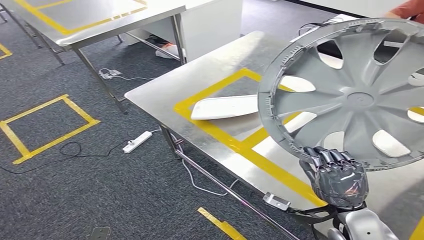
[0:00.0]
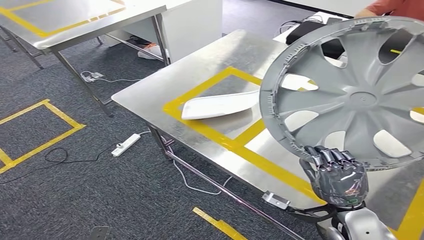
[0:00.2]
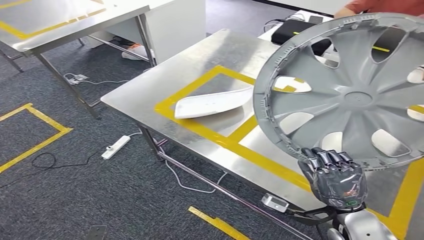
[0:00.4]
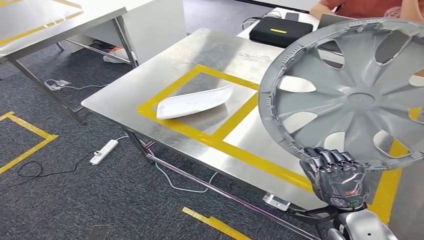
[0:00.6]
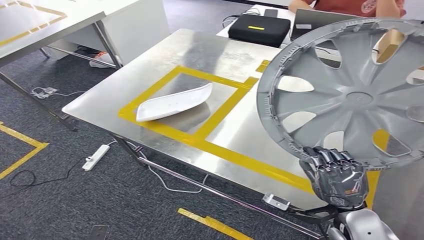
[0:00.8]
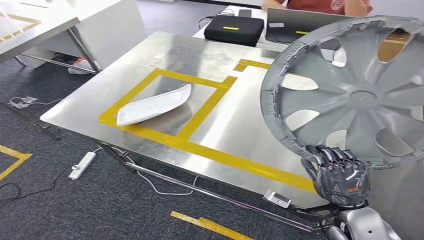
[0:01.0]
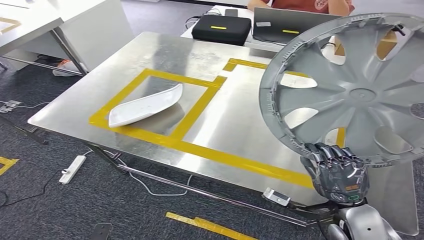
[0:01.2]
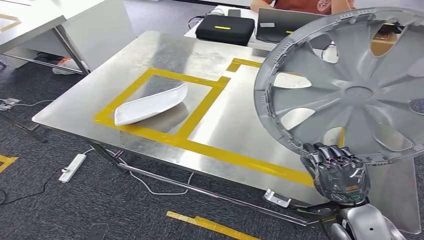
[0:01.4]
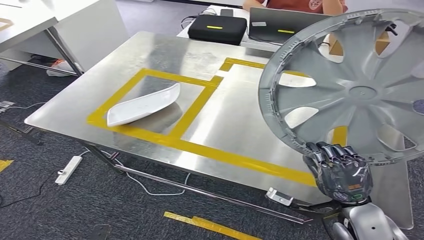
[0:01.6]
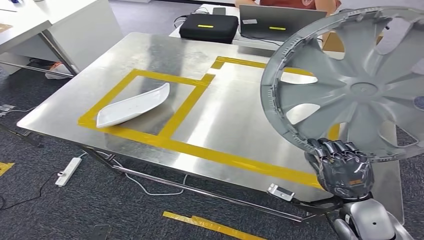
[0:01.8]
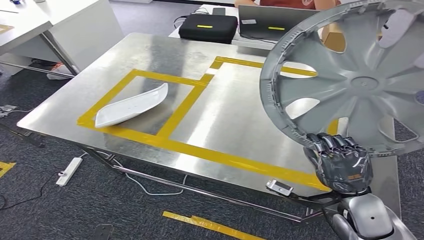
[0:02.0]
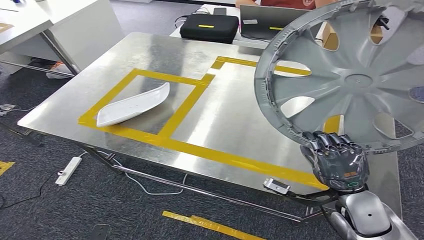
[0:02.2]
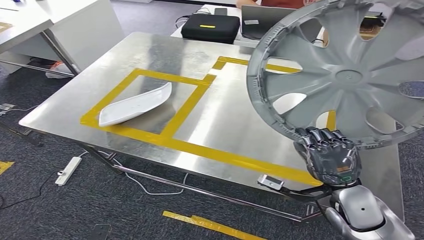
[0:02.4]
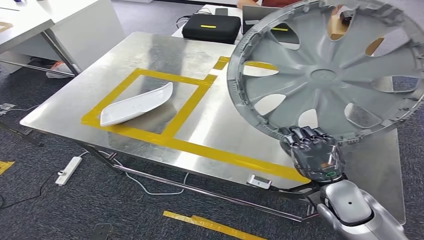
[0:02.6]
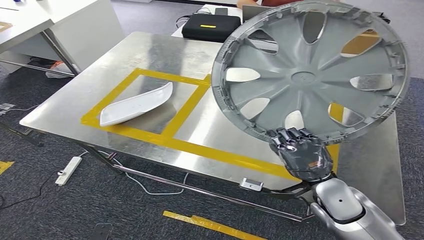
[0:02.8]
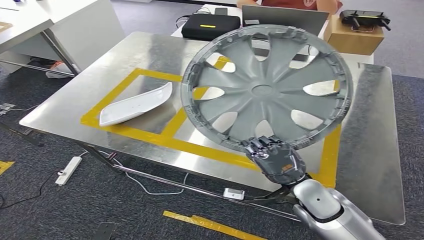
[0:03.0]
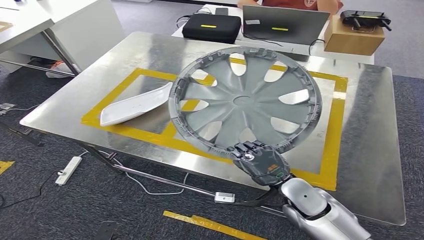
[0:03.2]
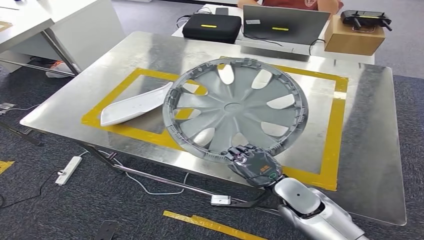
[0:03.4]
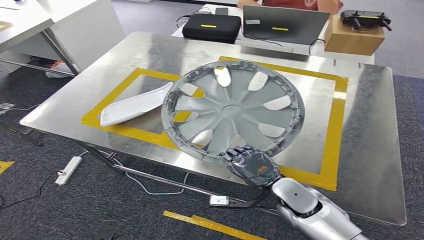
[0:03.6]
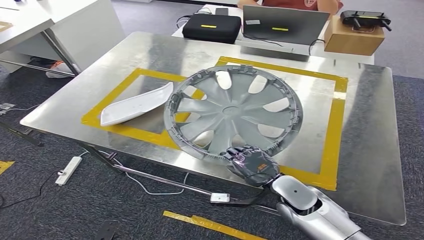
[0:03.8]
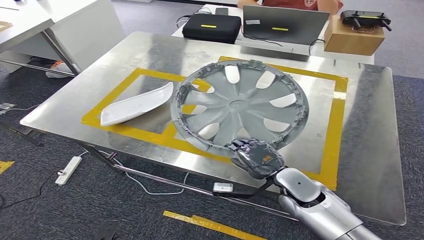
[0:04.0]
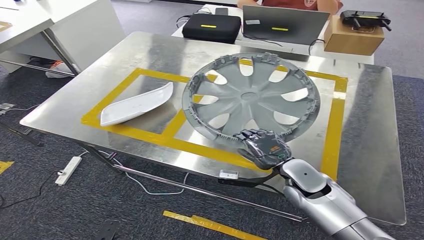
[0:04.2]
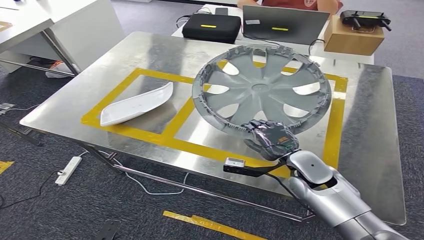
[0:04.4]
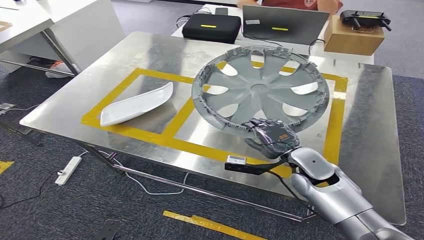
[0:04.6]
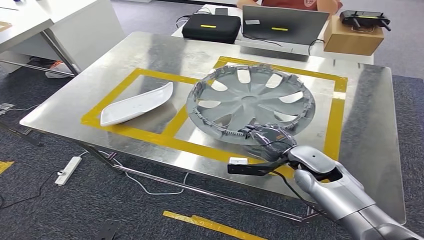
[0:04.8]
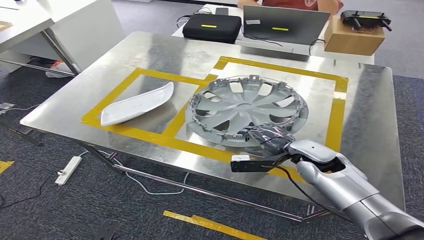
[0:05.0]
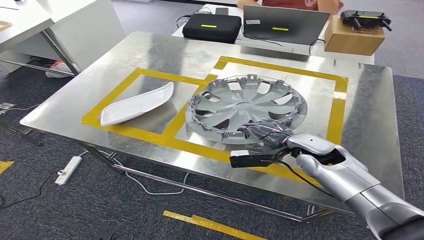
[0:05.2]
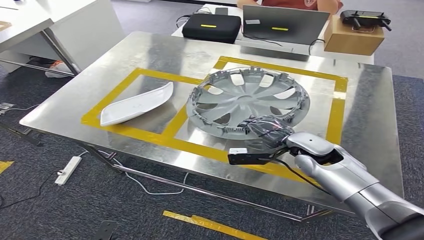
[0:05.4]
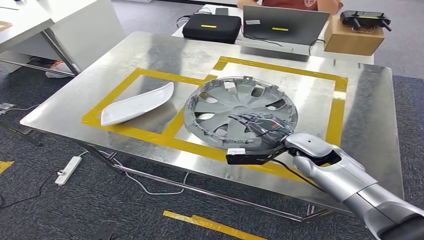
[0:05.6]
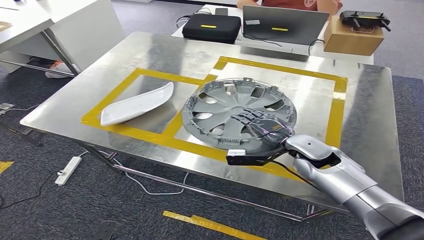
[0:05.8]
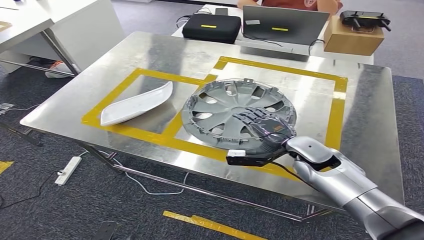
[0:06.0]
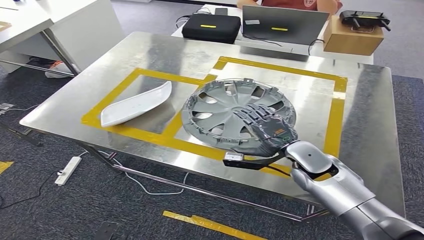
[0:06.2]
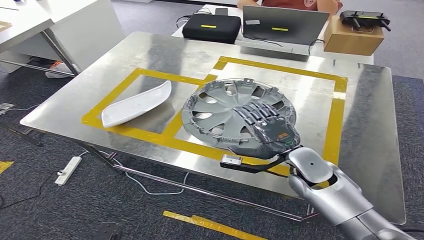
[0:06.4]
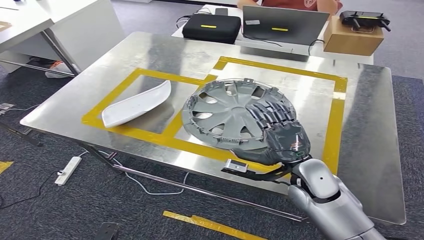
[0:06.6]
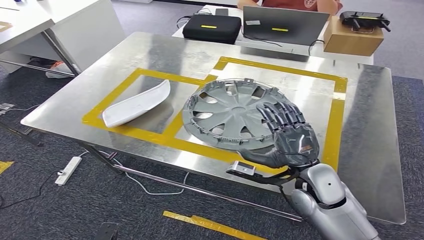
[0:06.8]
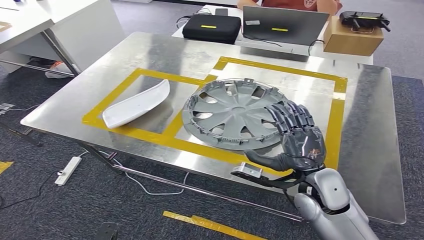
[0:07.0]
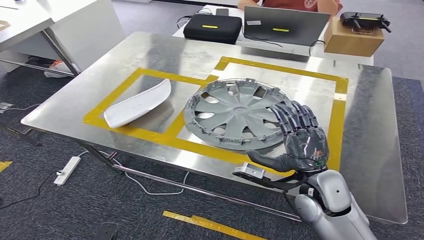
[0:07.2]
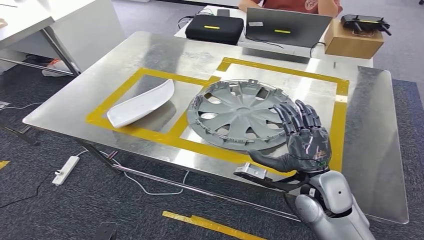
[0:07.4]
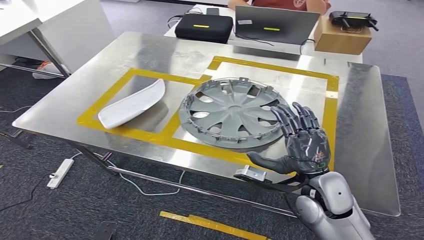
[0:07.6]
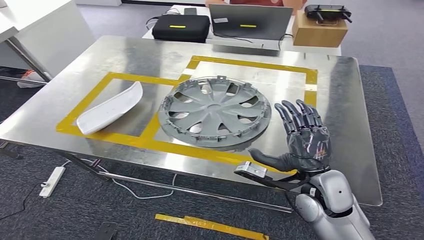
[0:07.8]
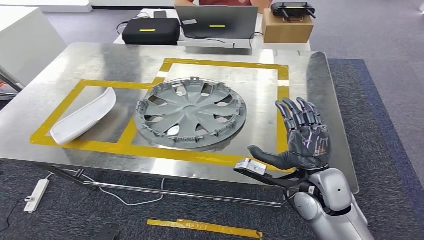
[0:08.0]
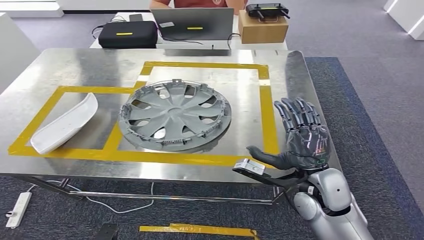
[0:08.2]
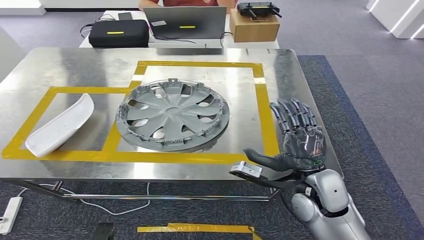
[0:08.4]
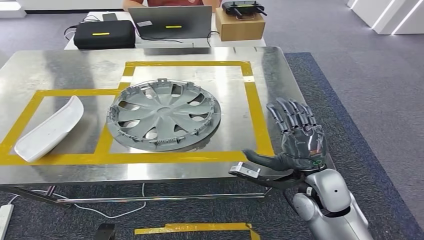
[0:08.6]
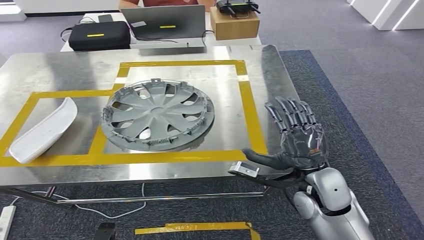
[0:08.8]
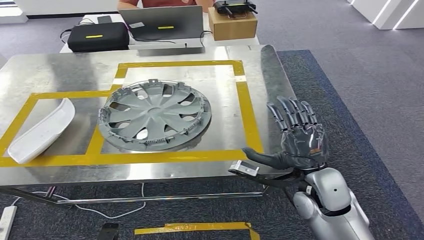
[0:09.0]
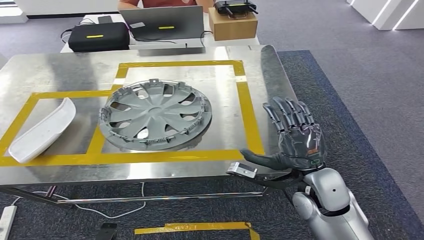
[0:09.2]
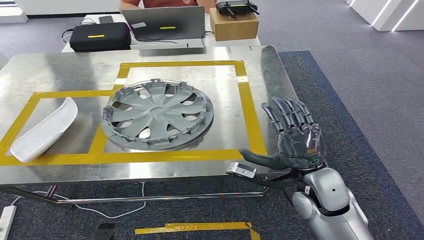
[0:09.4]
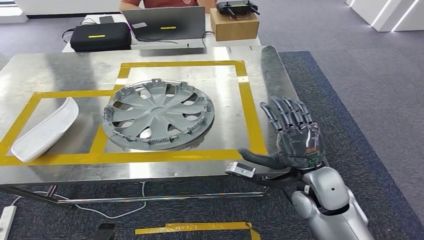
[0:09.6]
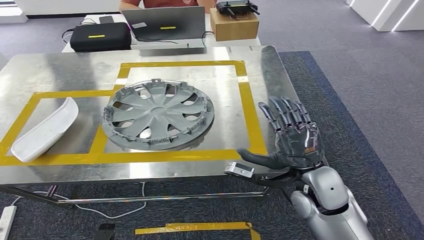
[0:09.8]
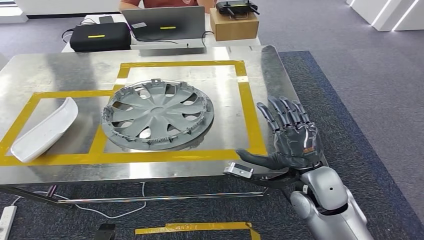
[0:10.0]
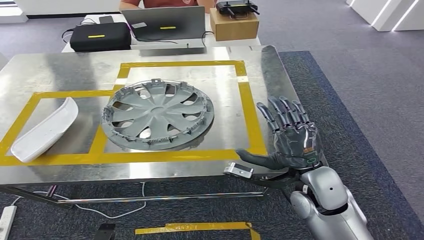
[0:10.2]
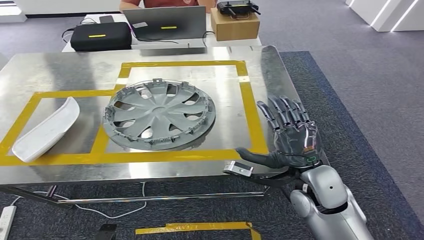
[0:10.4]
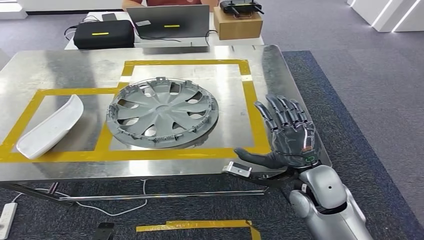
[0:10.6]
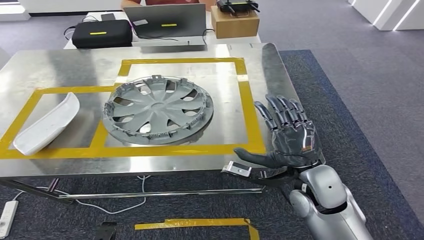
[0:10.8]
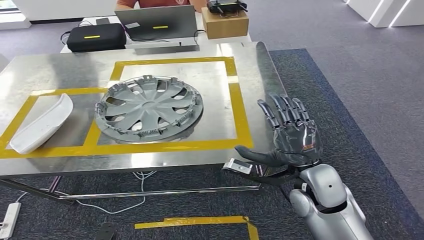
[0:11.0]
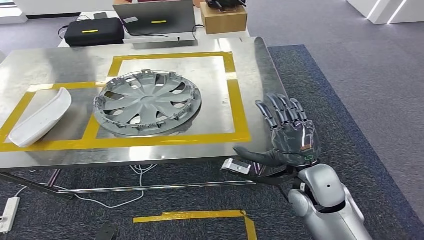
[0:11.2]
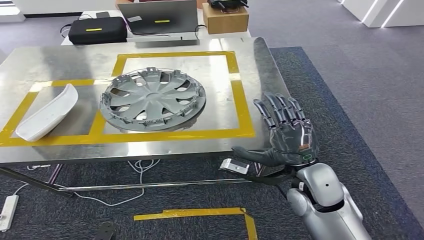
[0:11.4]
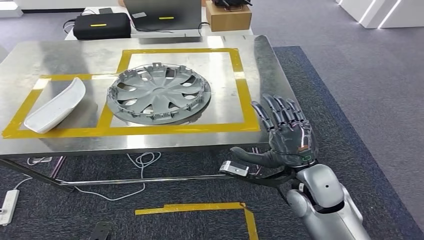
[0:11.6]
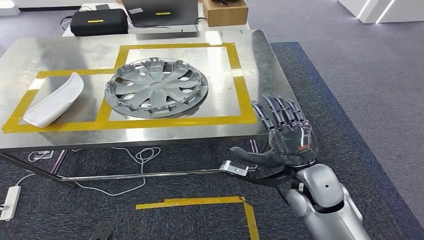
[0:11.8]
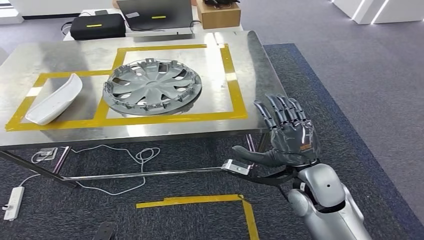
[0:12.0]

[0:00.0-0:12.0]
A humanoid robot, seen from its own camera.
0:03.0 to 0:04.4: The right hand travels forward by approximately 5 cm.
0:09.0 to 0:10.4: Neither hand changes place.

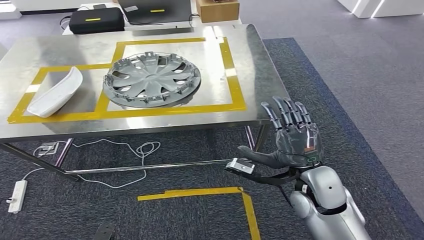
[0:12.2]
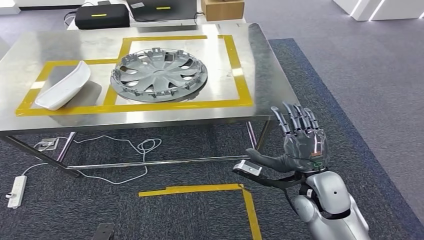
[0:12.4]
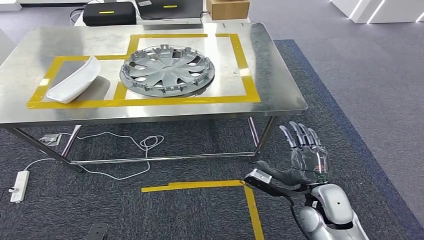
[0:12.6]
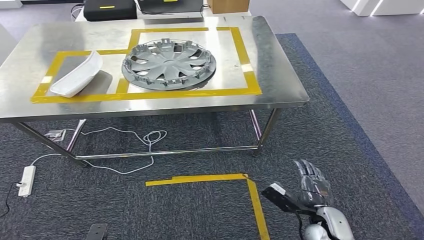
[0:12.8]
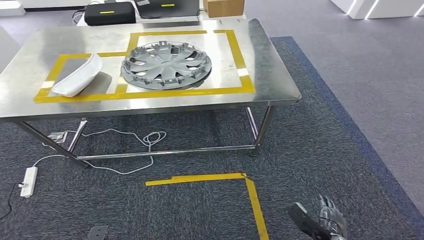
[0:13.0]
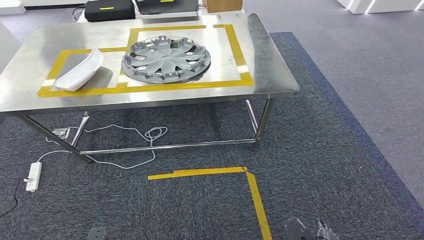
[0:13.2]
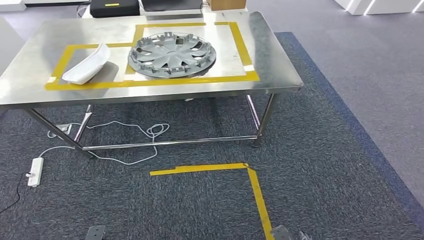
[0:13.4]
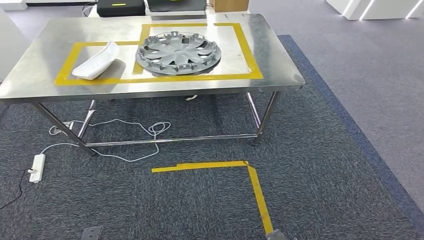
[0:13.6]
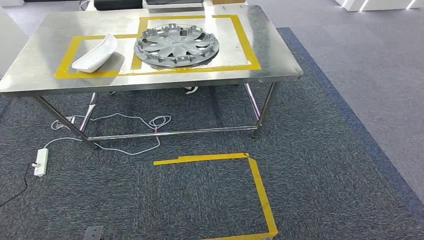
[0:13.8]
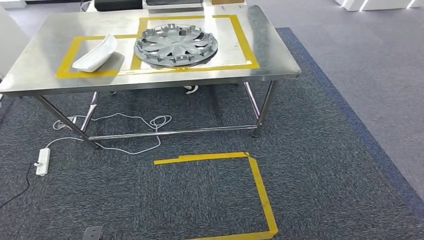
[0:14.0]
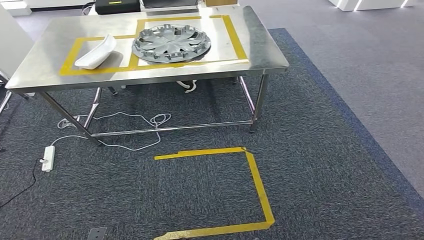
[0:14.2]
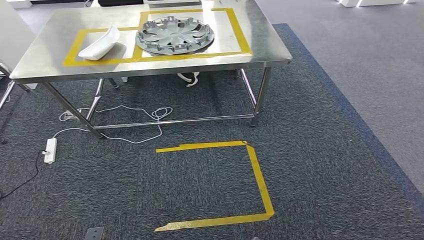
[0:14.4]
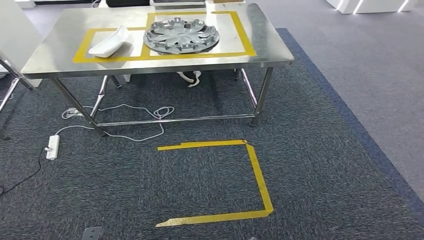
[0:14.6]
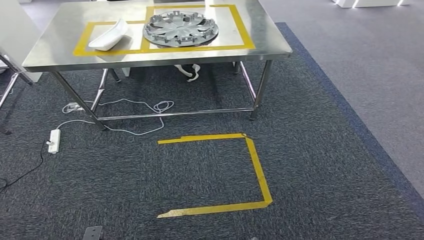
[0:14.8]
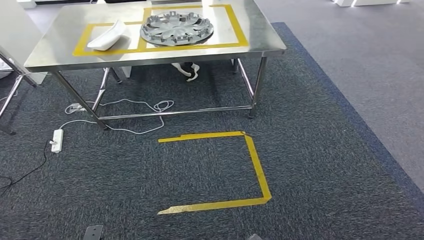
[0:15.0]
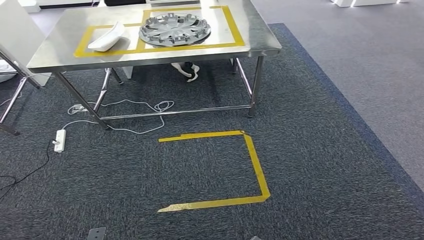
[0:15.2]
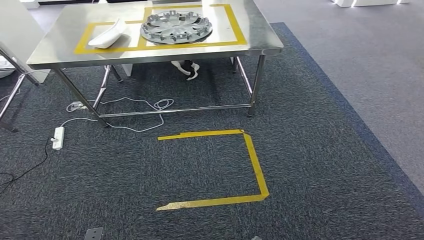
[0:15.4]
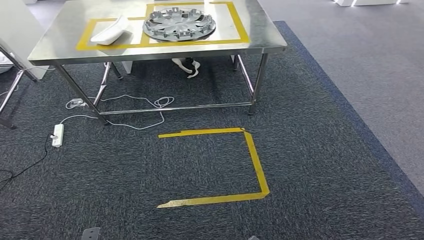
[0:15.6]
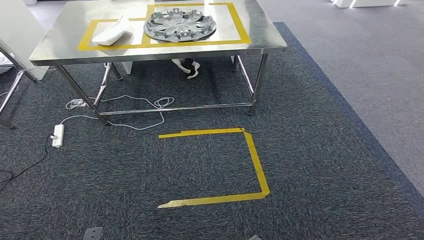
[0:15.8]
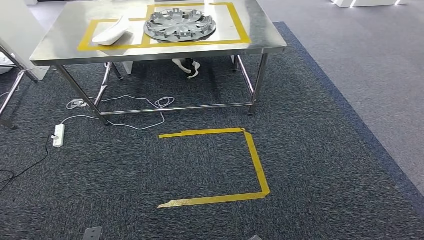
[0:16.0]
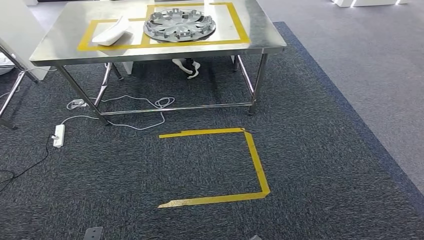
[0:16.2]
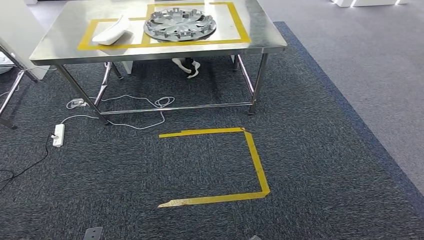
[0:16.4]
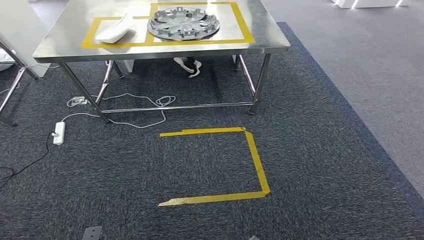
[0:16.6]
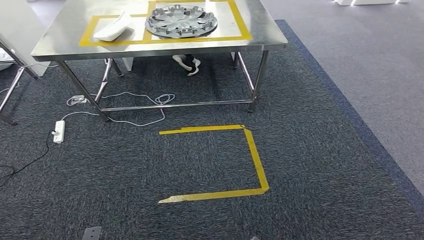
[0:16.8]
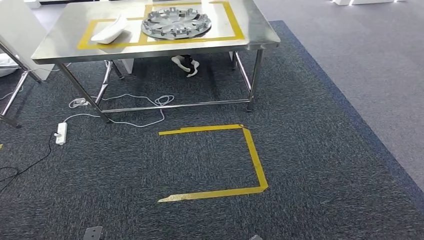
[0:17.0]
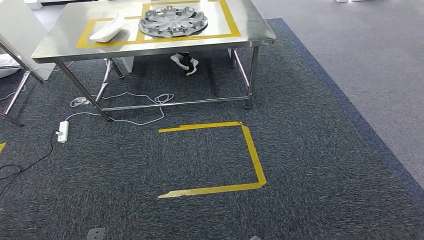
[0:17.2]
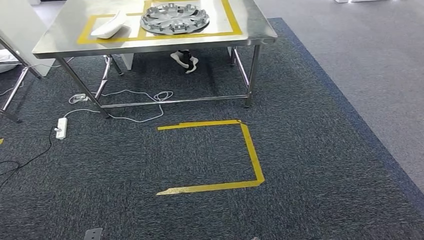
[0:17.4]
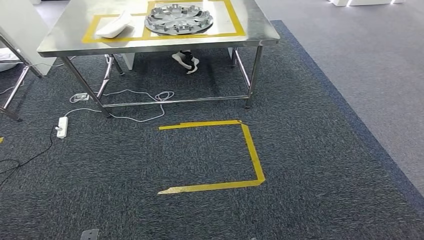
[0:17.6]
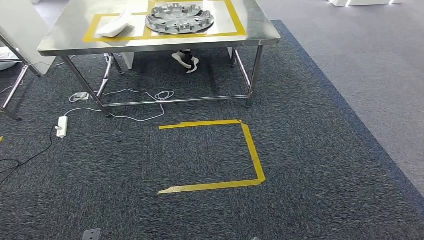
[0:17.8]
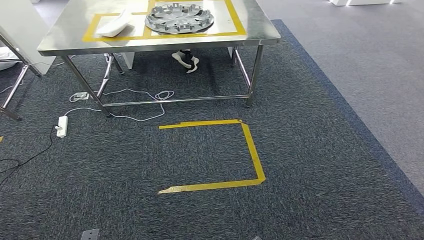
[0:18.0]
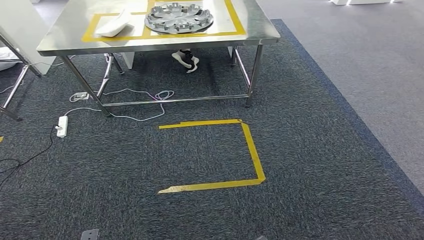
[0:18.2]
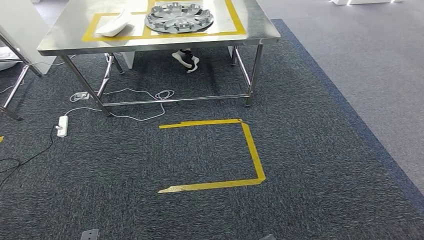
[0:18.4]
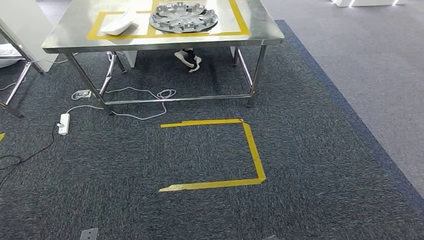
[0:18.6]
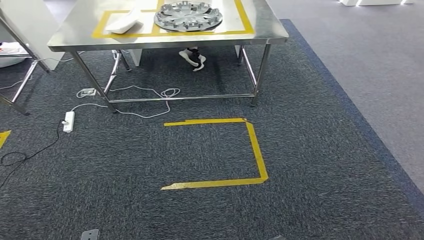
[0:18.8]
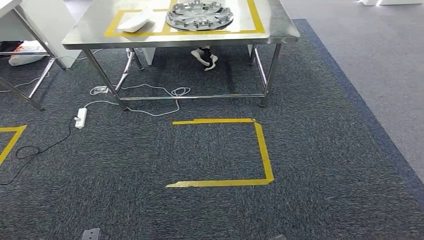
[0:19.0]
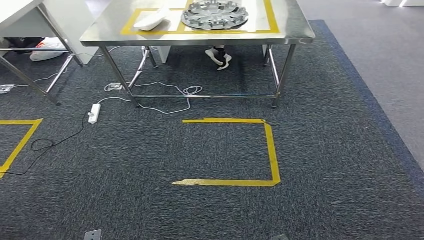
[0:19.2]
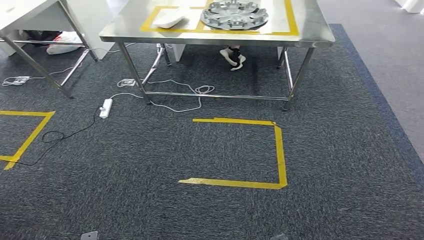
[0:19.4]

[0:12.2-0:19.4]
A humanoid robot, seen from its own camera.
0:15.0 to 0:18.0: Both hands stay about where they are.
